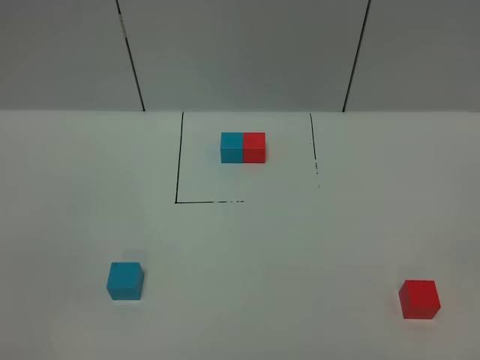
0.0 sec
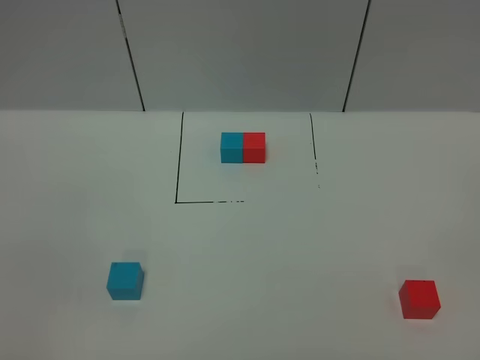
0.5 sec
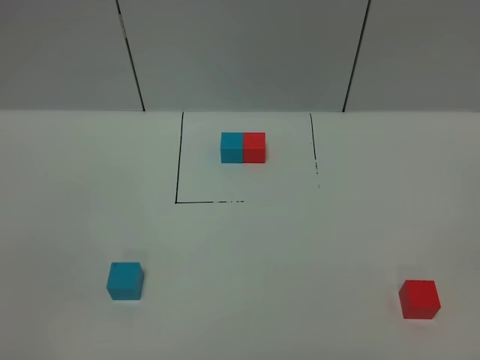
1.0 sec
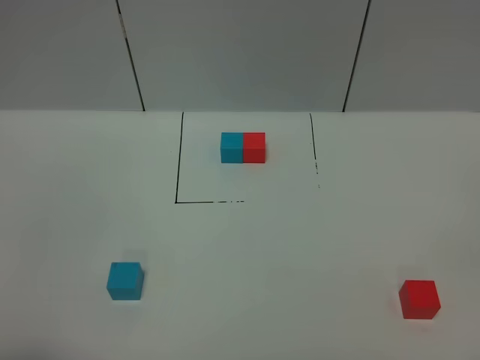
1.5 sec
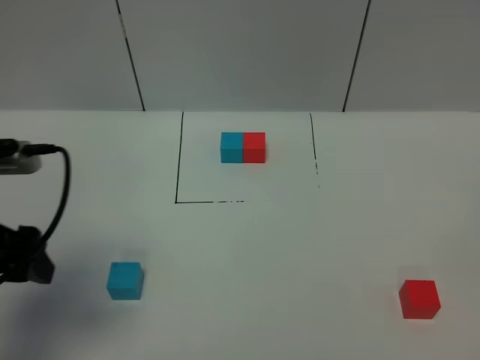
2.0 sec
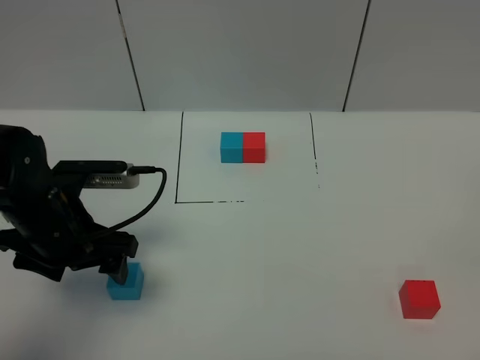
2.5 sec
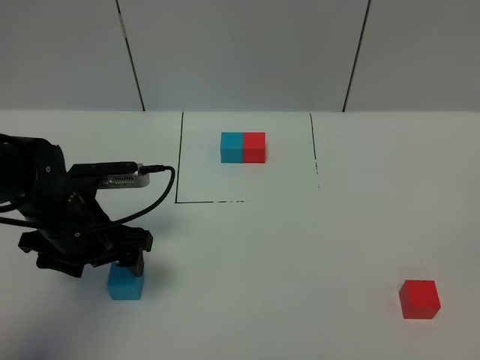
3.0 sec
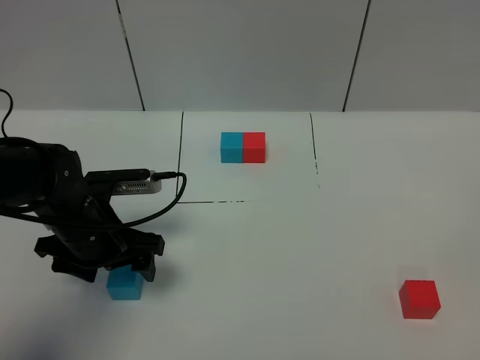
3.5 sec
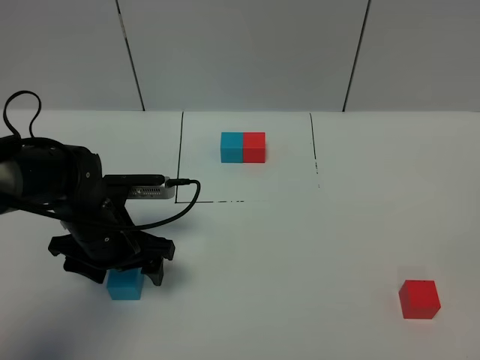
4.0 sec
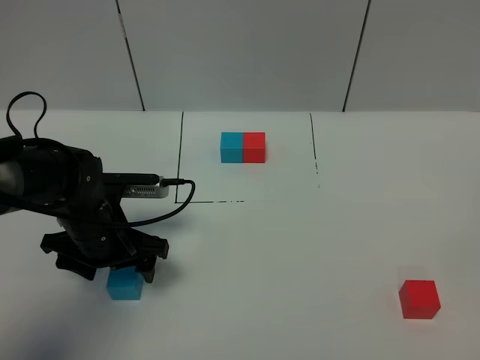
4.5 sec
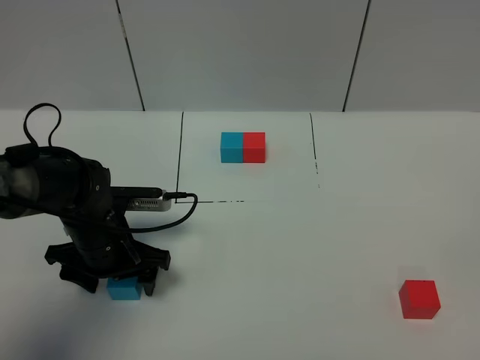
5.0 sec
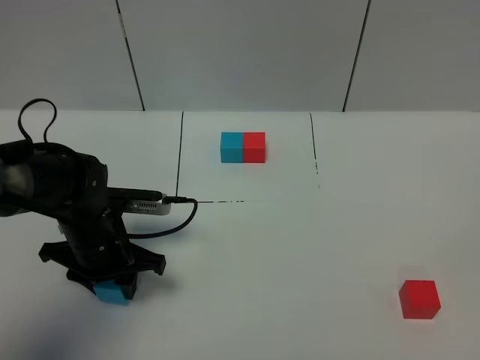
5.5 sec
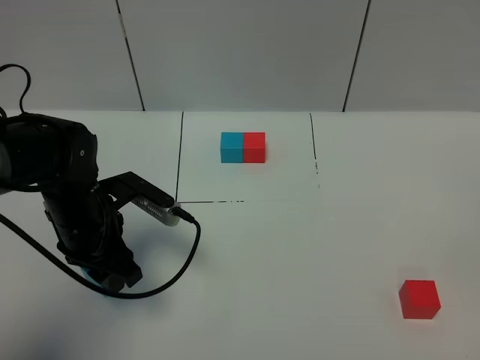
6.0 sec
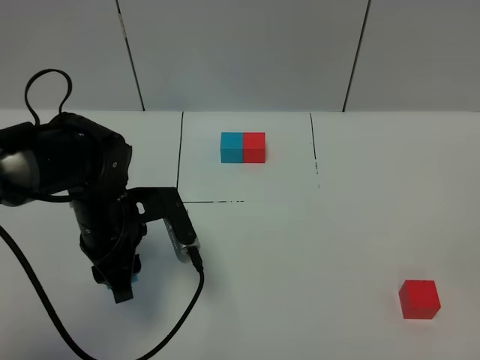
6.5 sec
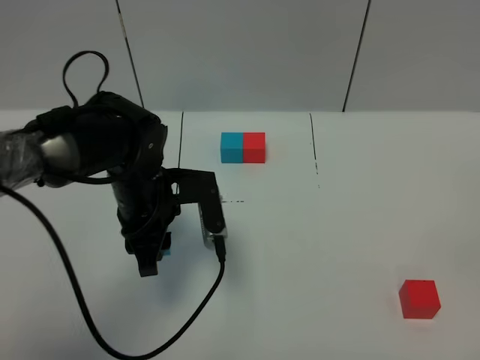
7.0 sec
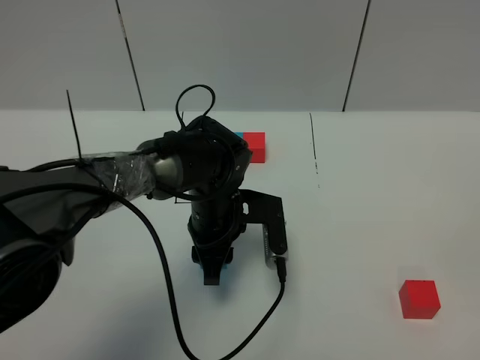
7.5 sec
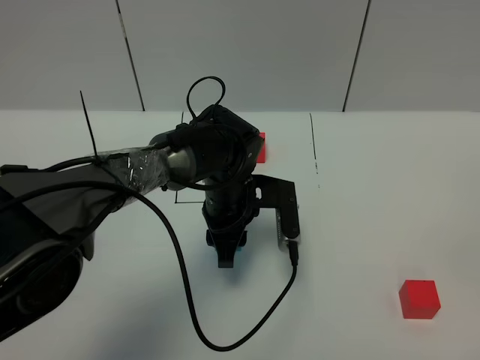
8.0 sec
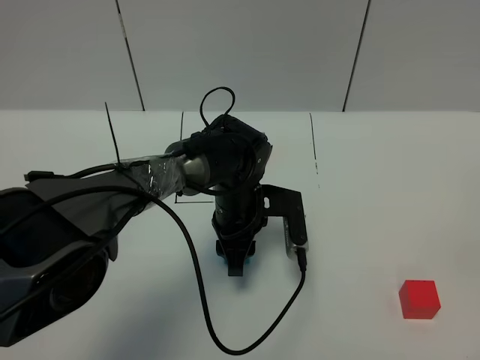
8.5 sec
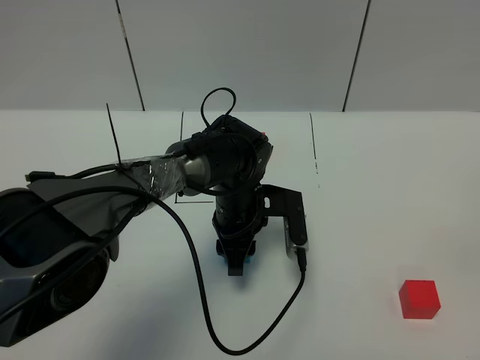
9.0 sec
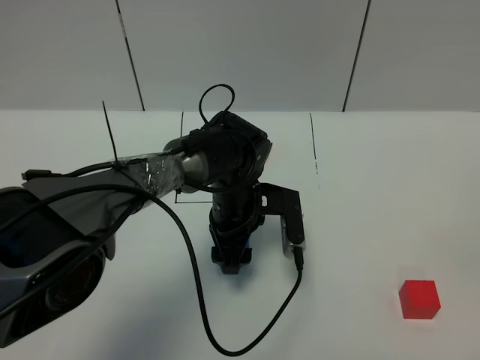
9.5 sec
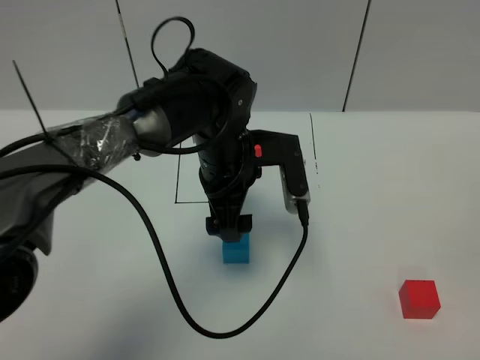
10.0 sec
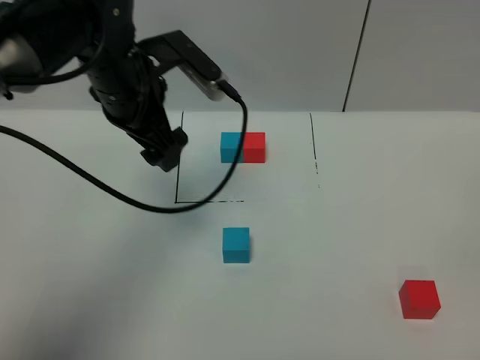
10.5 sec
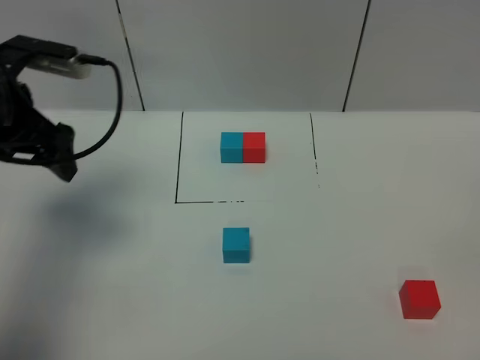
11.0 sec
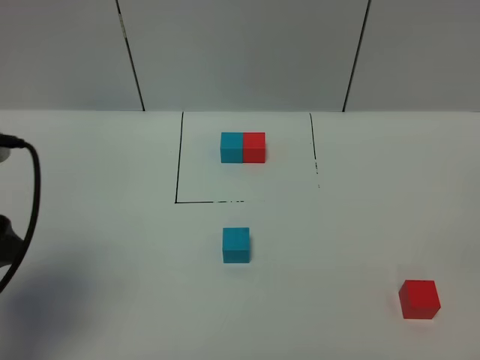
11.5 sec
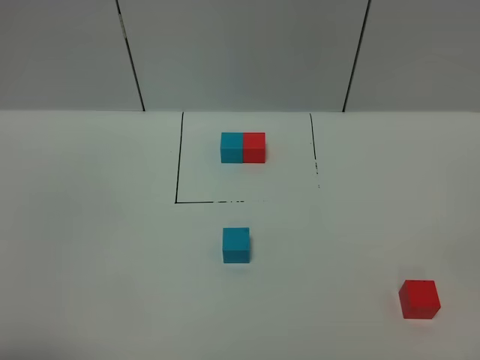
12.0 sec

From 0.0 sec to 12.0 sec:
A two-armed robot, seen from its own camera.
Task of the whole recording: According to the building block template in front, assemble the scattered blocks together.
Step, from 2.0 sec to 9.5 sec: Put the blue cube in the center of the table.
From 0.0 sec to 2.0 sec: The left gripper moves forward, roughly 25 cm.
From 2.0 sec to 4.0 sec: The left gripper travels downward, forward and to the right by about 20 cm.
From 4.0 sec to 6.0 sec: The left gripper closes its fingers.
From 6.0 sec to 8.0 sec: The left gripper travels to the right by approximately 15 cm.
From 8.0 sec to 10.0 sec: The left gripper travels upward by roughly 10 cm, and opens up.
From 10.0 sec to 12.0 sec: The left gripper heads backward and to the left, covering some 40 cm.

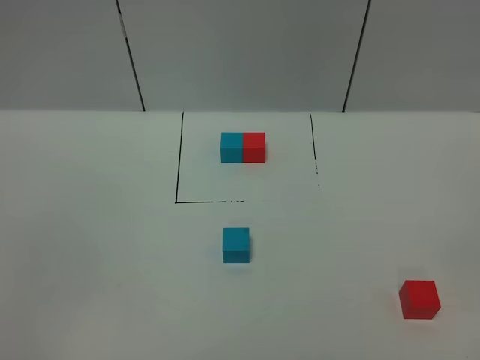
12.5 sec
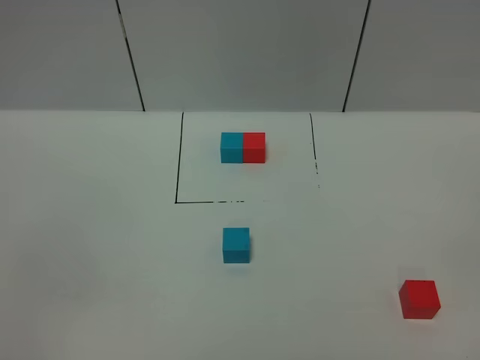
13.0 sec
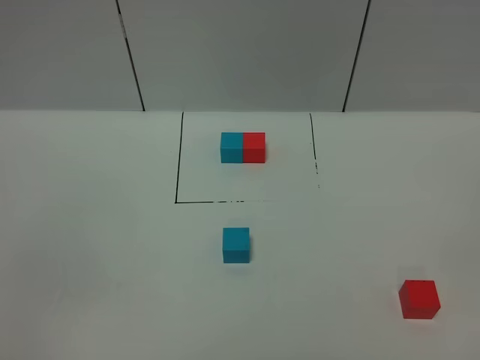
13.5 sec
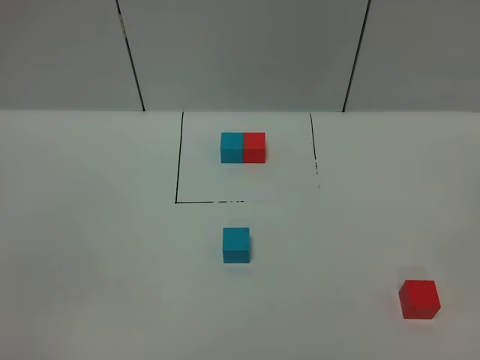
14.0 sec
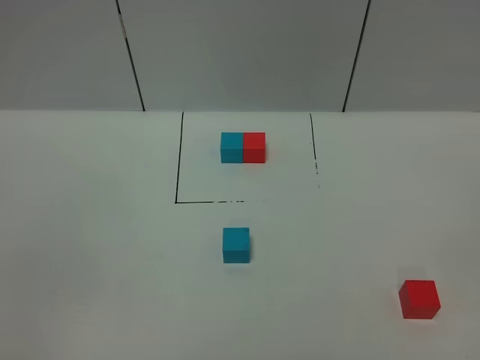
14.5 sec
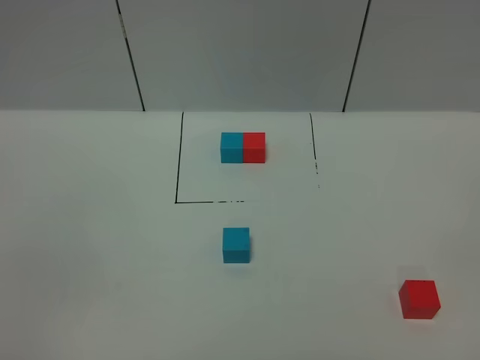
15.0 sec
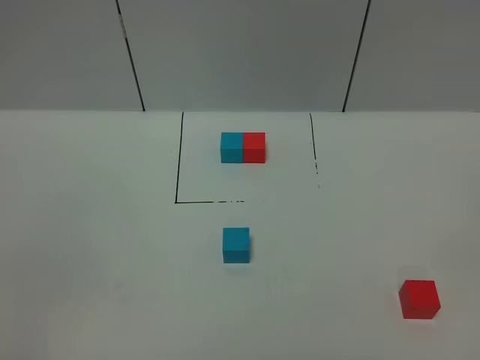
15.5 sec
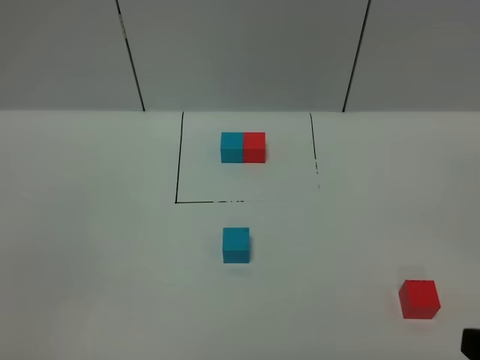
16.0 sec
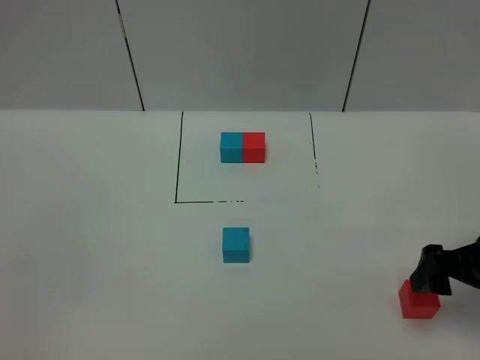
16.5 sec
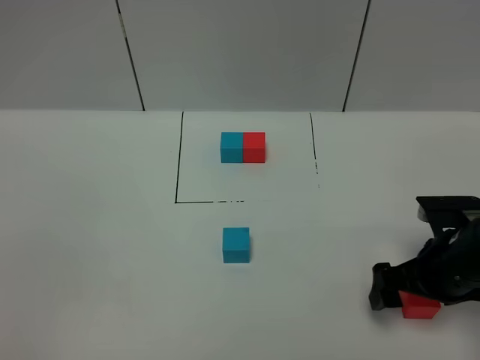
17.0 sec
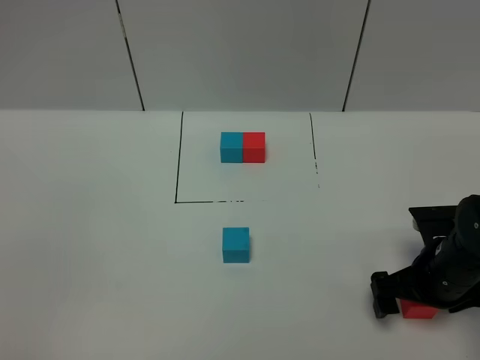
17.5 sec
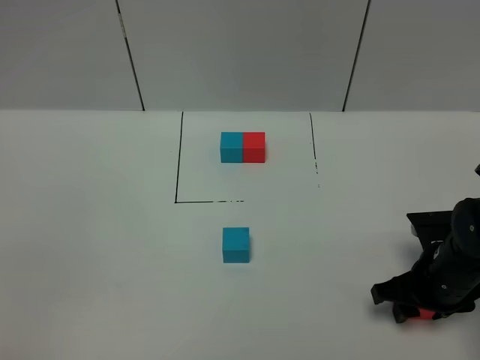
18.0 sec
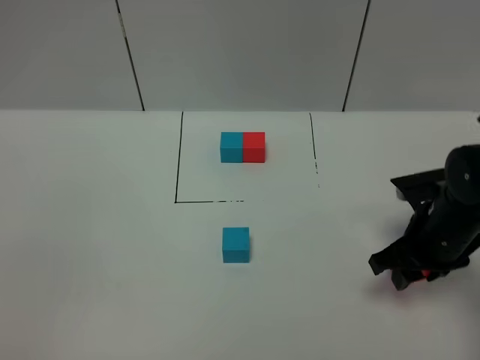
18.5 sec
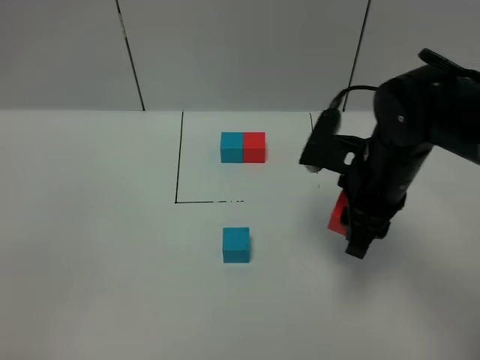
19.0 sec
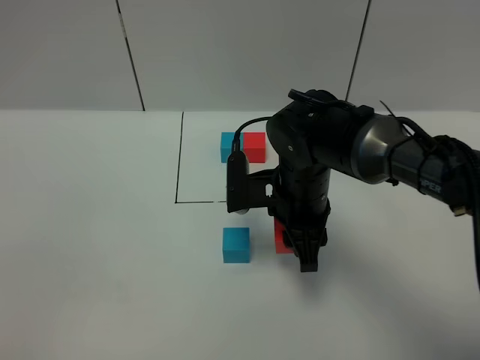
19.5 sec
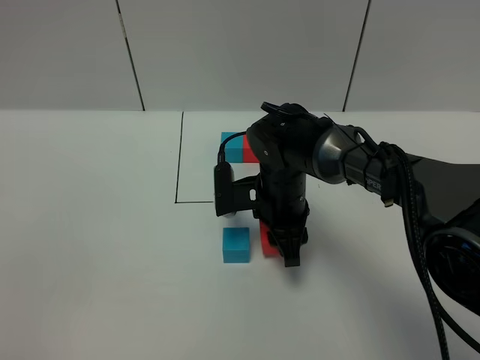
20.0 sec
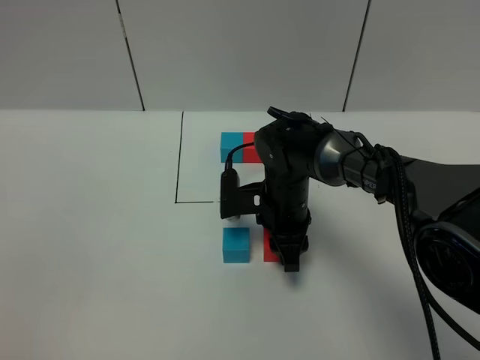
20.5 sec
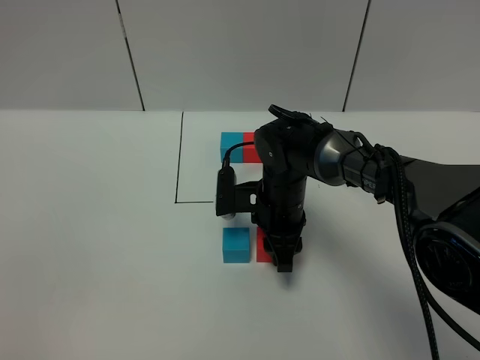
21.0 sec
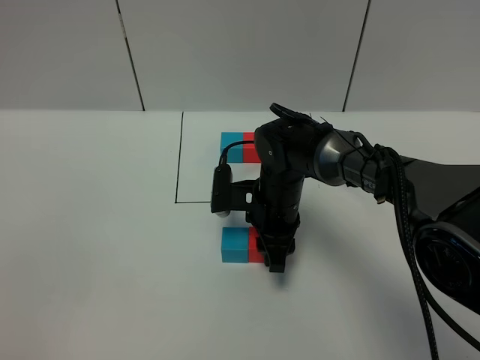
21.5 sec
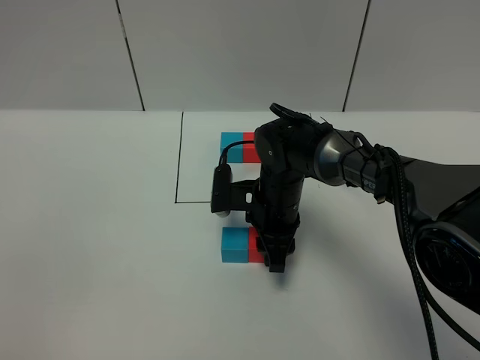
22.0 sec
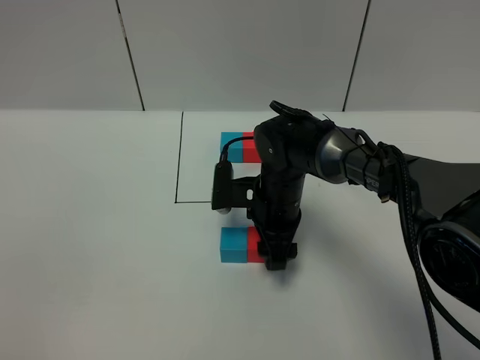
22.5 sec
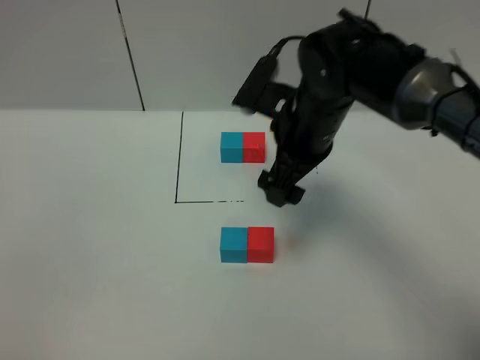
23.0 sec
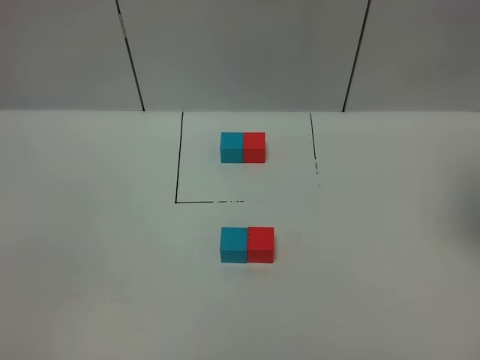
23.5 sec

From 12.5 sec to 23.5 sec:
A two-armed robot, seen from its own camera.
Task of the whole recording: According to the building block template in front, assemble the scattered blocks together.
Step, from 12.5 sec to 22.5 sec: Put the red cube on the right of the blue cube.
From 16.0 sec to 18.0 sec: The right gripper is displaced forward and downward by some 25 cm, and closes its fingers.
From 18.0 sec to 20.0 sec: The right gripper heads to the left and forward, covering about 20 cm.
From 20.0 sec to 21.5 sec: The grippers move only a little.
From 21.5 sec to 23.5 sec: The right gripper heads upward and to the right, covering roughly 40 cm, and opens.

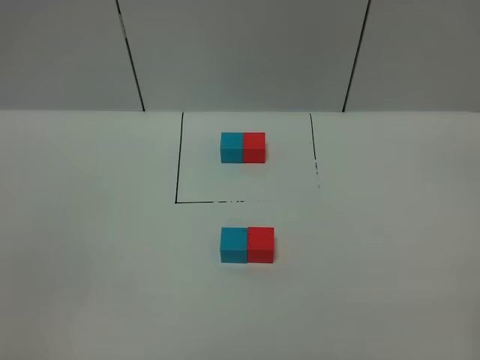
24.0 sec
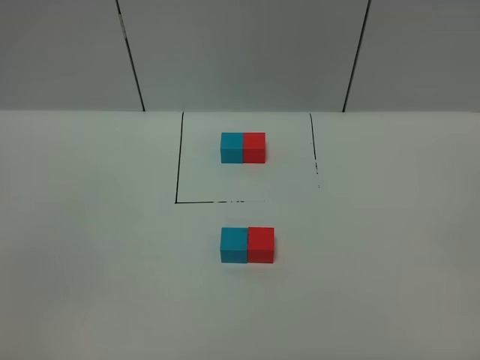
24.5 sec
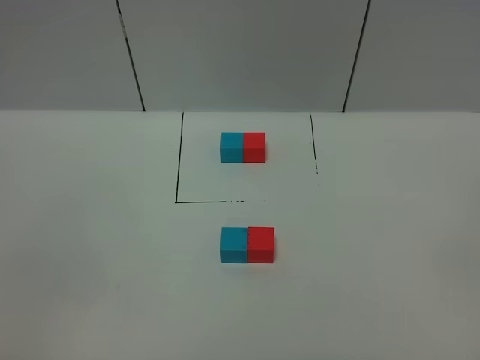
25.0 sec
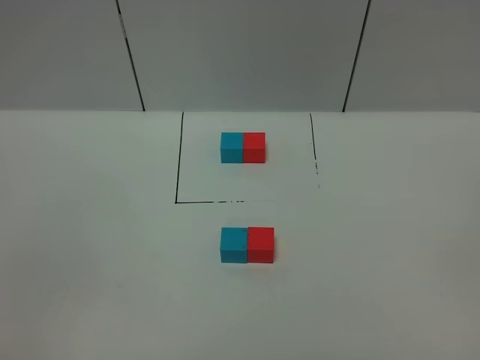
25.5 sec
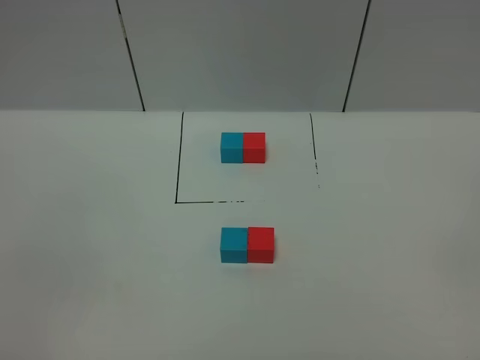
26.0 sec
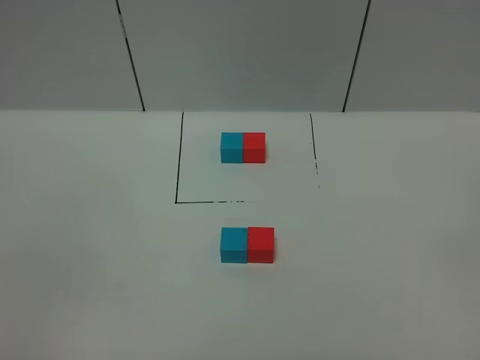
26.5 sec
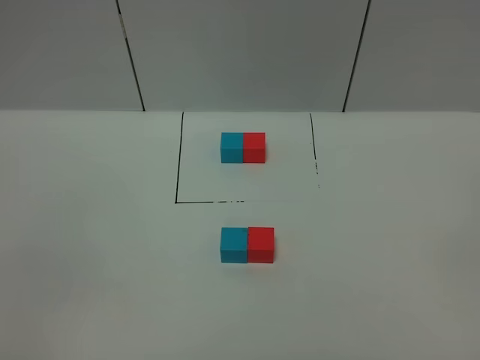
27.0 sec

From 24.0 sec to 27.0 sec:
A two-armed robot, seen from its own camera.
Task of the whole recording: According to the building block template in front, assemble the scattered blocks together.
From 25.5 sec to 27.0 sec: Both grippers stay put.
